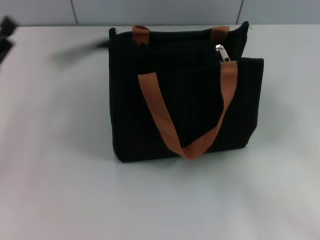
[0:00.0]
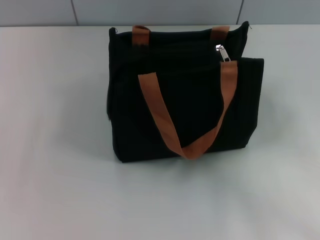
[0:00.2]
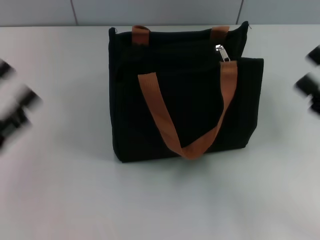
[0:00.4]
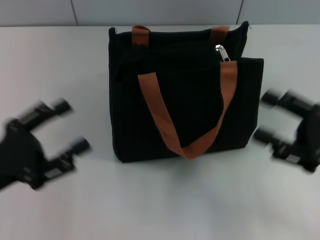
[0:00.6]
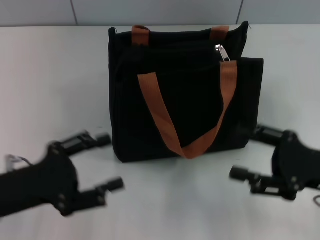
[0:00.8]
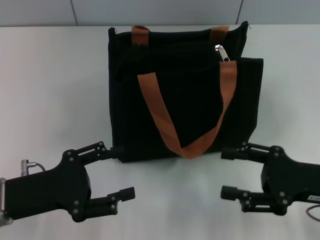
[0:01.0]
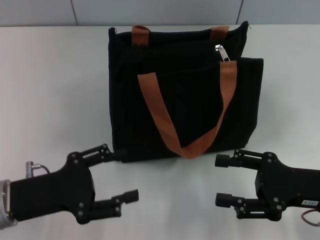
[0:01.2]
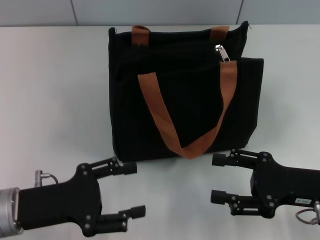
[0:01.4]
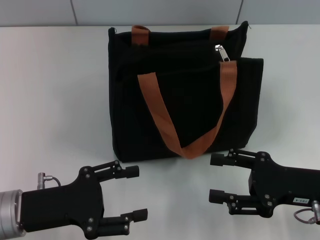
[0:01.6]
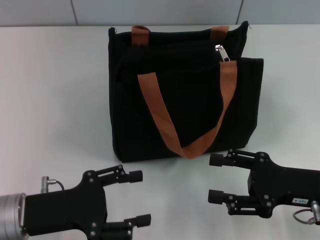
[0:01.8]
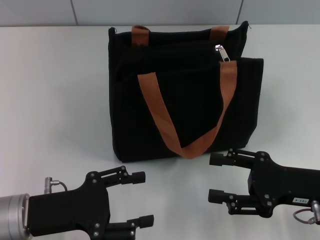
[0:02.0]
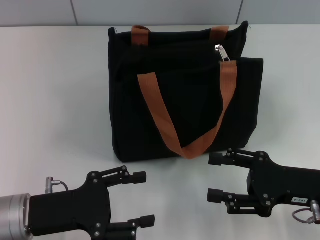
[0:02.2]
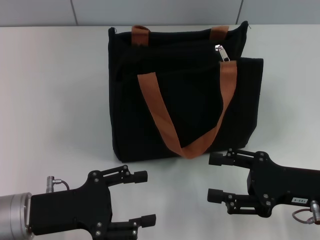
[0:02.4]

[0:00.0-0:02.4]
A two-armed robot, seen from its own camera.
0:00.0 to 0:01.2: The left gripper ends up some 5 cm from where it was. The right gripper is displaced to the left by some 5 cm.
0:01.2 to 0:02.4: The grippers make only small movements.
